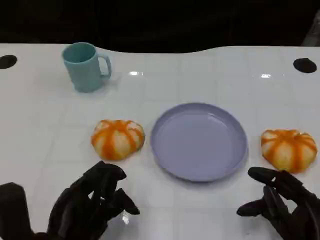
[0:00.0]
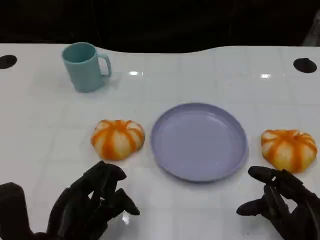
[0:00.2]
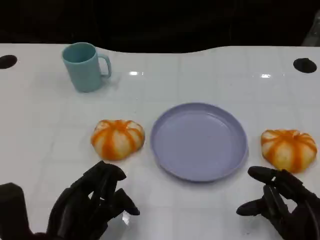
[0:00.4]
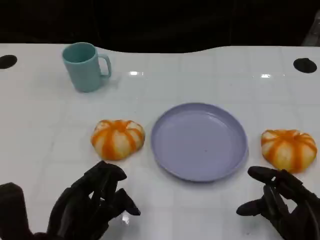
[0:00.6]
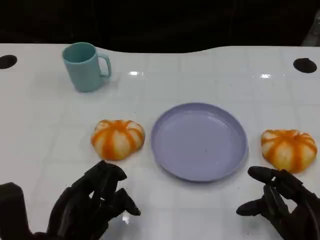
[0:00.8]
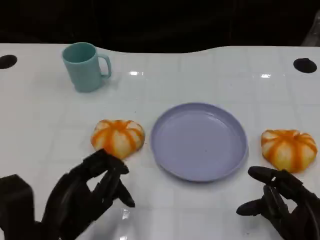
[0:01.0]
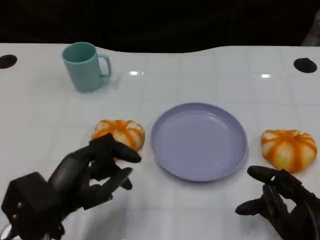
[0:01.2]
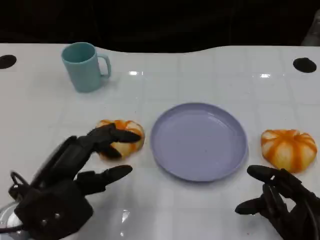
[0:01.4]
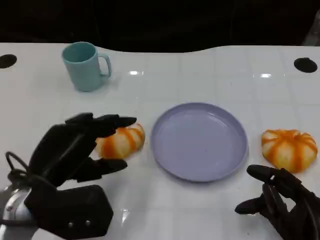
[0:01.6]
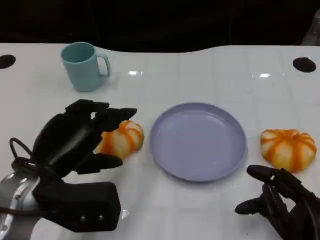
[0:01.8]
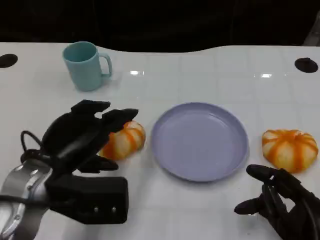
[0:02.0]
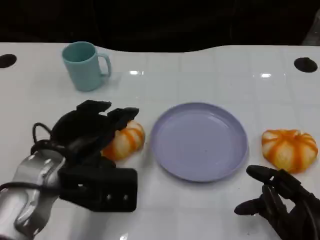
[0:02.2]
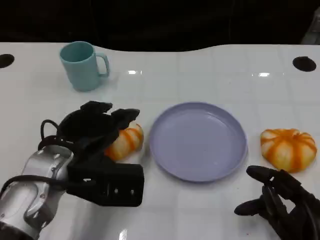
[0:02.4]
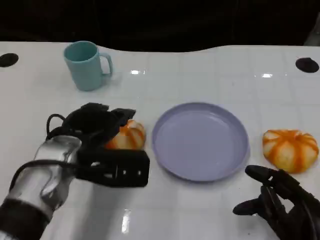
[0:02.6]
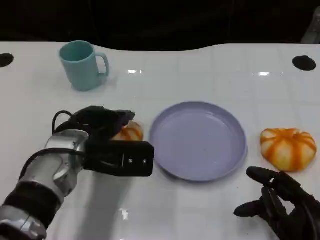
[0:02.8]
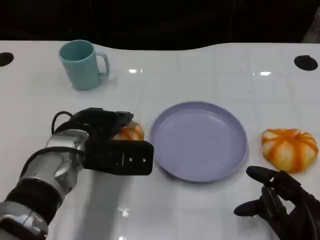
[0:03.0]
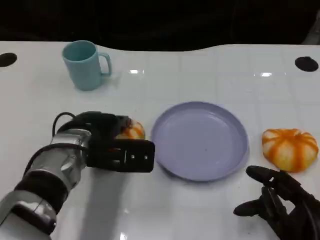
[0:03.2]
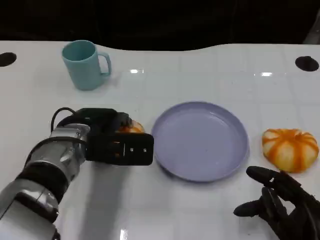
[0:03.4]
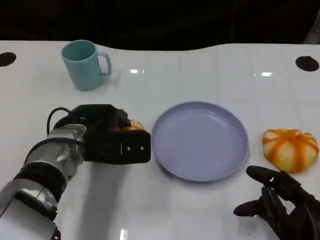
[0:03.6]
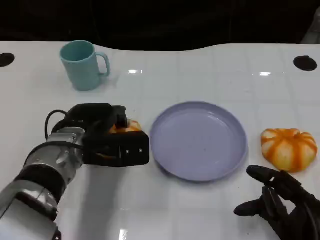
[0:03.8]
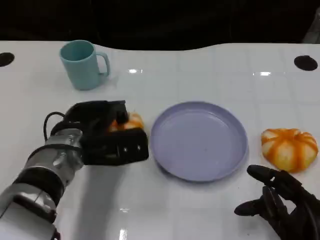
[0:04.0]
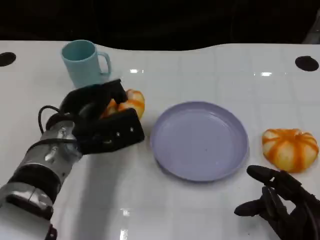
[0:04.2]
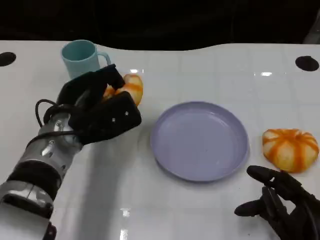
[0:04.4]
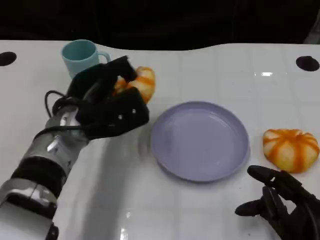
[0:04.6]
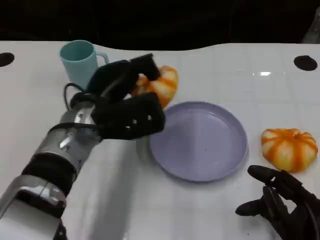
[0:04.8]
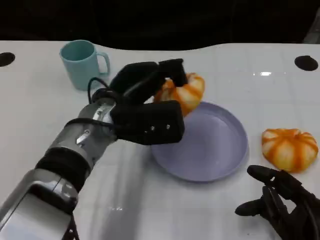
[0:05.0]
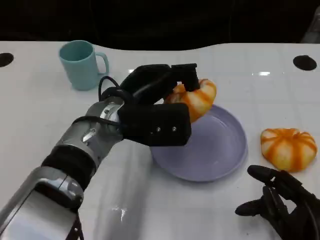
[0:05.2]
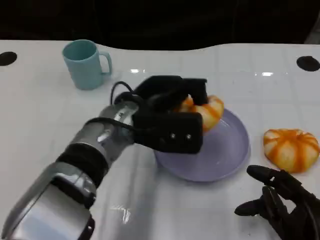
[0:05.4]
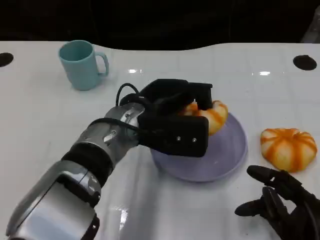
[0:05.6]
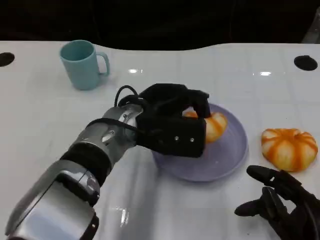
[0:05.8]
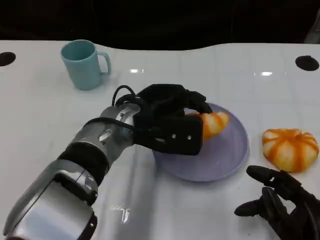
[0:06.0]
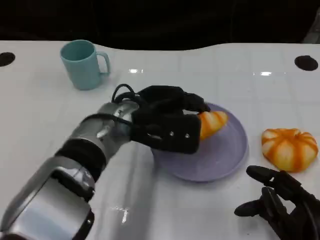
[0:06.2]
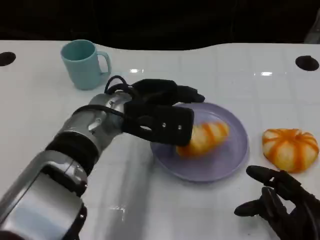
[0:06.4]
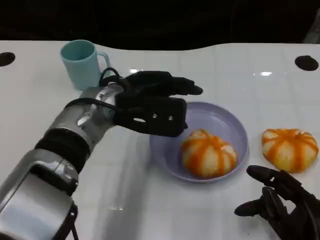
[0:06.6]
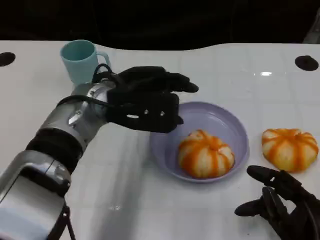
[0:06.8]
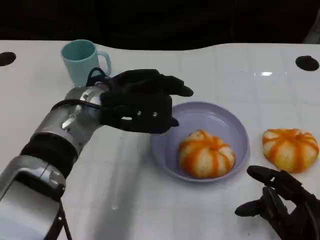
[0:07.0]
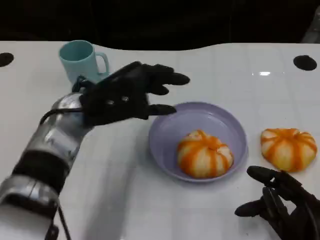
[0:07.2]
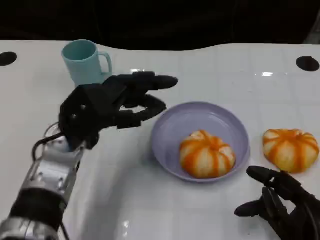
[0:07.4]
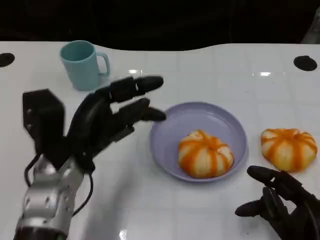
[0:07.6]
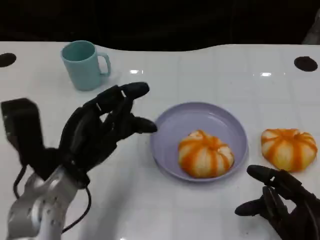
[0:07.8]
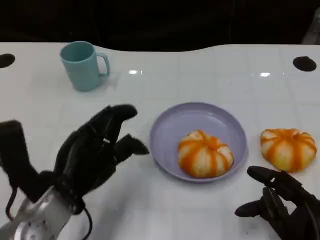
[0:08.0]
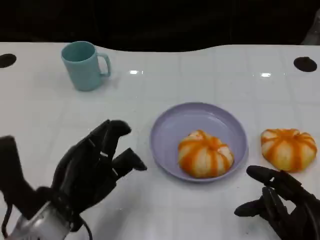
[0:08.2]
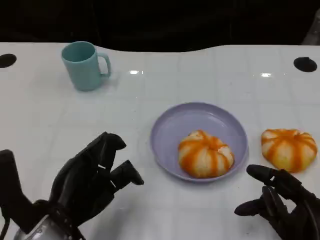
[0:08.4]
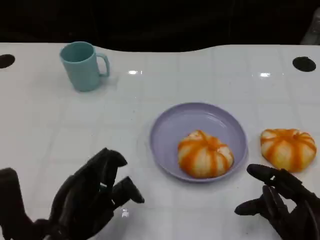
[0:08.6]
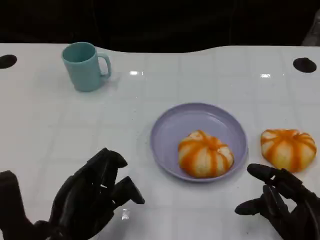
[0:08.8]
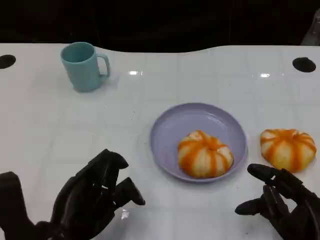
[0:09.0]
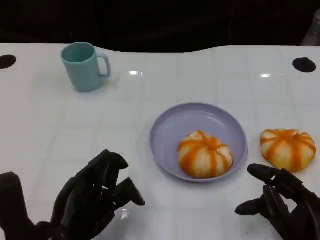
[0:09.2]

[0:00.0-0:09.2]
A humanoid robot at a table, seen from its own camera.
Task of the whole recording: Grasp the bread from the table and place it into the plate.
0:00.0 to 0:01.6: The left hand heads forward and upward, covering about 10 cm.
0:01.6 to 0:03.0: The left hand is displaced forward and to the right by roughly 10 cm.
0:04.6 to 0:06.2: The left hand goes about 5 cm to the right.
0:06.2 to 0:07.6: The left hand travels to the left and backward by some 10 cm.
0:07.6 to 0:09.2: The left hand heads backward, covering roughly 10 cm.

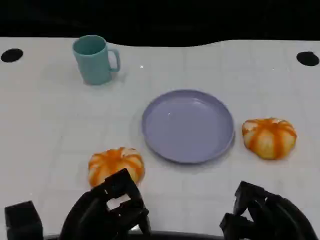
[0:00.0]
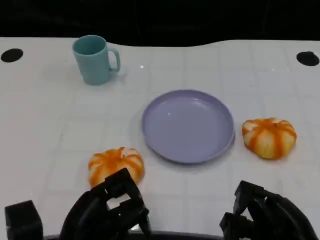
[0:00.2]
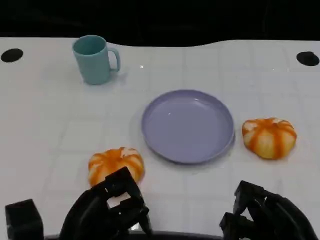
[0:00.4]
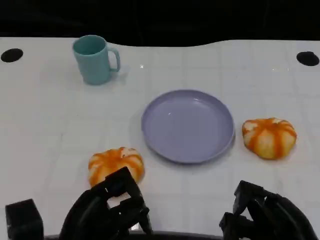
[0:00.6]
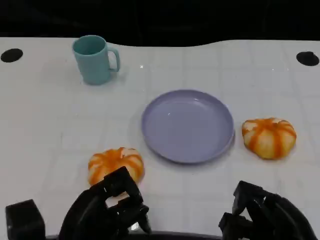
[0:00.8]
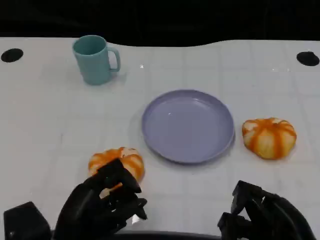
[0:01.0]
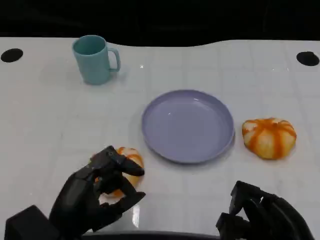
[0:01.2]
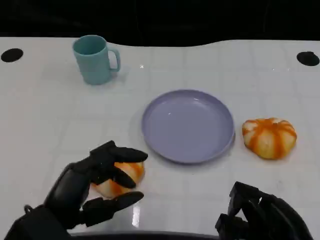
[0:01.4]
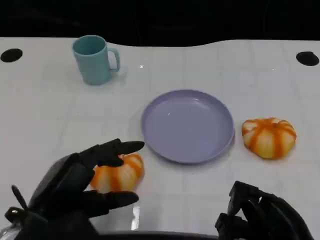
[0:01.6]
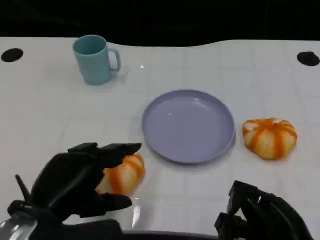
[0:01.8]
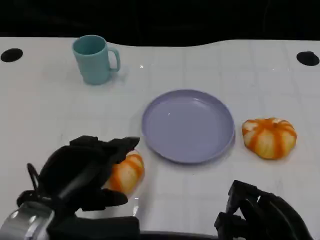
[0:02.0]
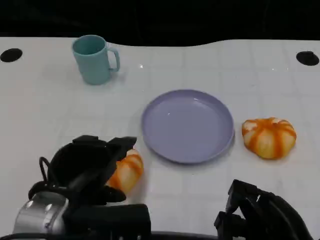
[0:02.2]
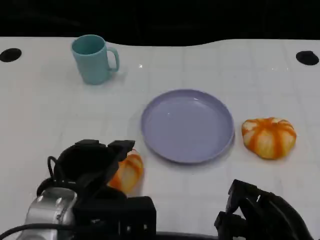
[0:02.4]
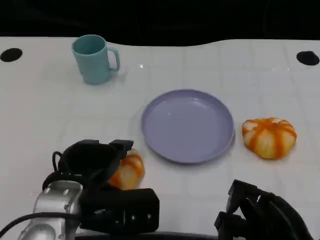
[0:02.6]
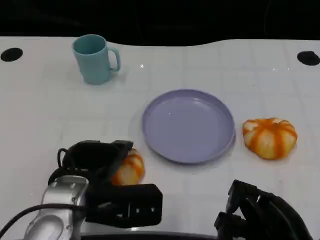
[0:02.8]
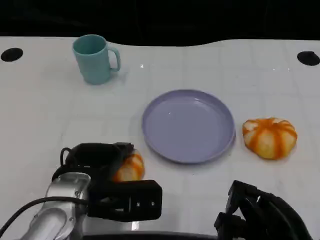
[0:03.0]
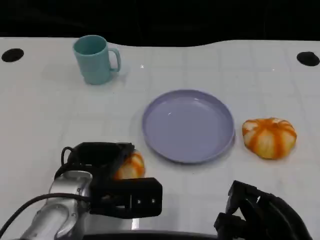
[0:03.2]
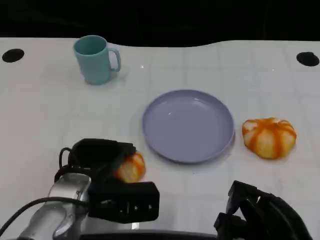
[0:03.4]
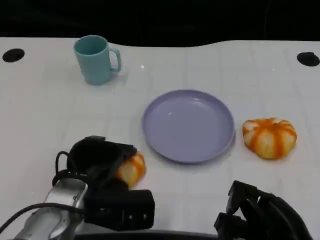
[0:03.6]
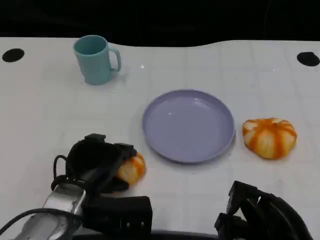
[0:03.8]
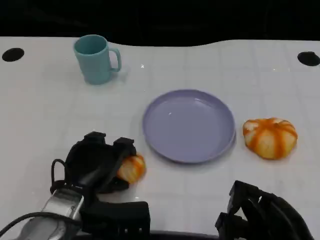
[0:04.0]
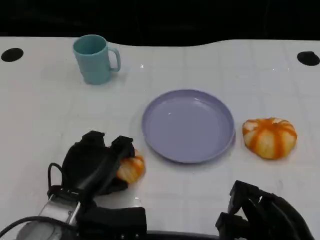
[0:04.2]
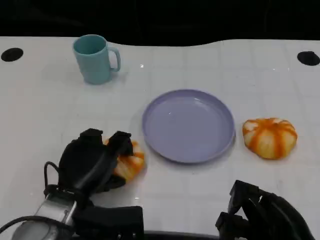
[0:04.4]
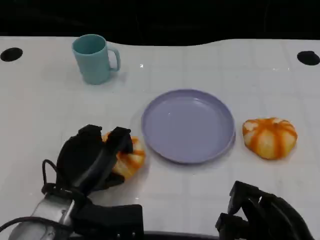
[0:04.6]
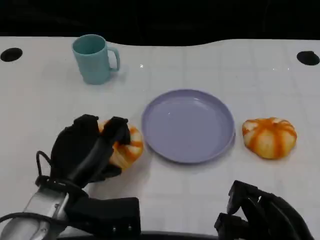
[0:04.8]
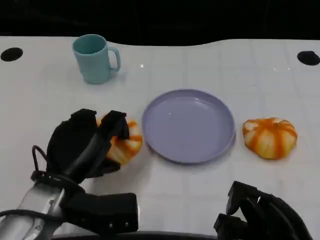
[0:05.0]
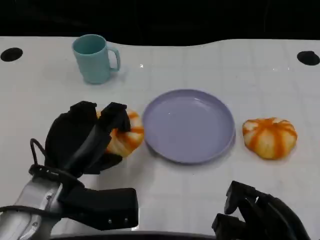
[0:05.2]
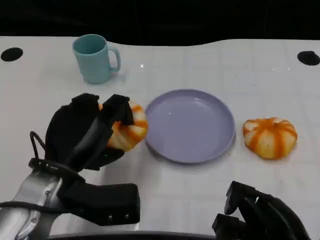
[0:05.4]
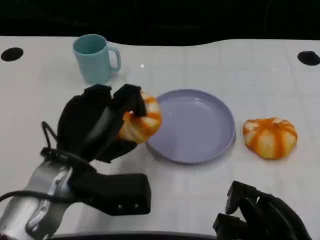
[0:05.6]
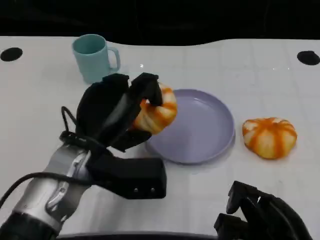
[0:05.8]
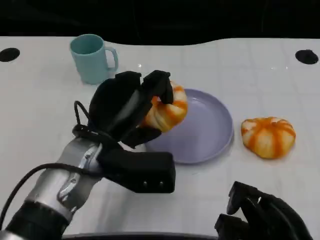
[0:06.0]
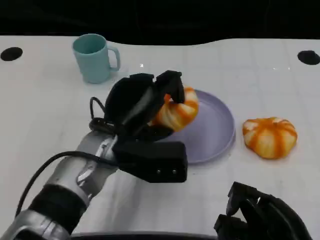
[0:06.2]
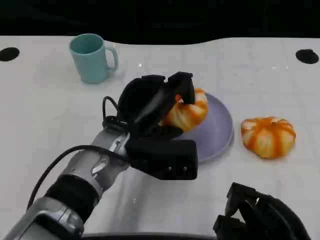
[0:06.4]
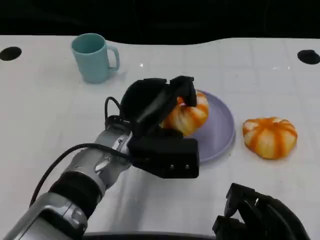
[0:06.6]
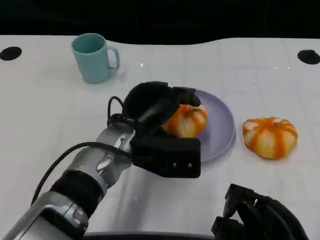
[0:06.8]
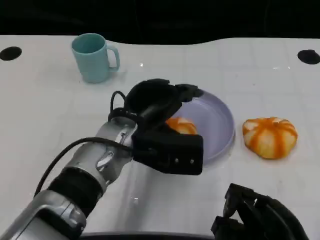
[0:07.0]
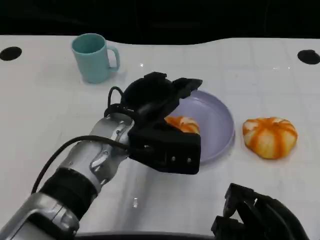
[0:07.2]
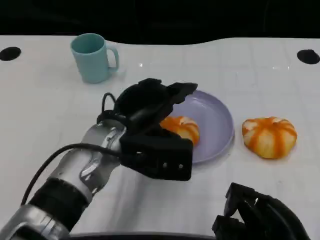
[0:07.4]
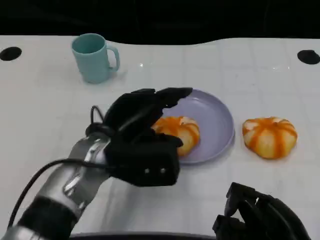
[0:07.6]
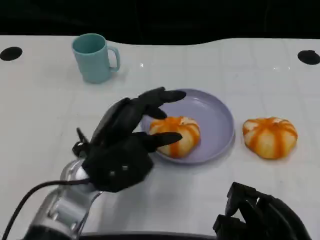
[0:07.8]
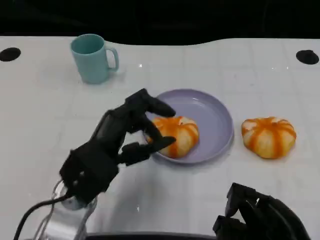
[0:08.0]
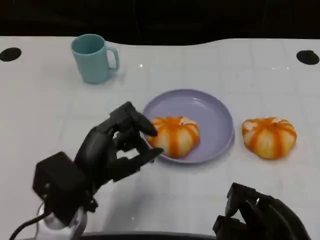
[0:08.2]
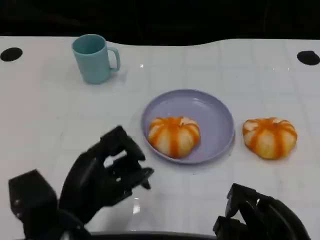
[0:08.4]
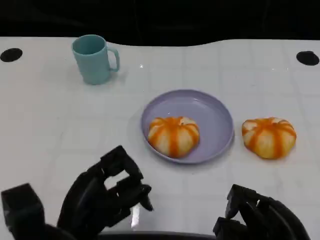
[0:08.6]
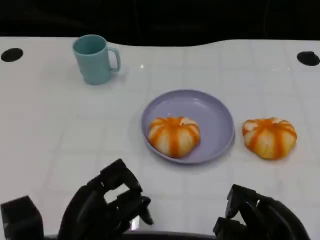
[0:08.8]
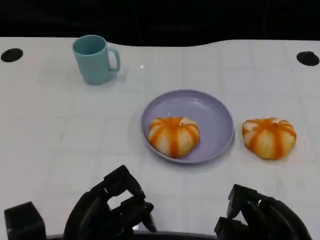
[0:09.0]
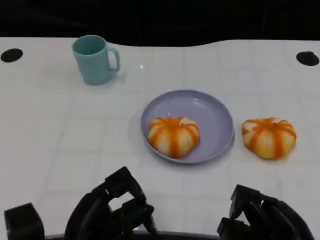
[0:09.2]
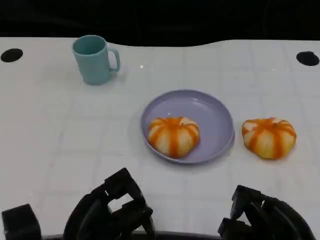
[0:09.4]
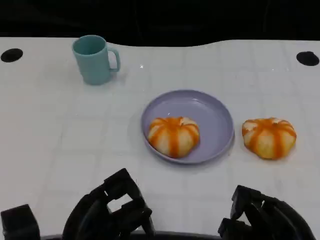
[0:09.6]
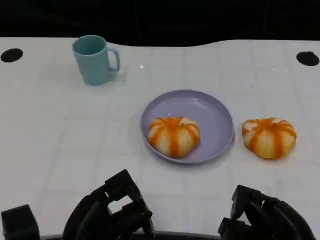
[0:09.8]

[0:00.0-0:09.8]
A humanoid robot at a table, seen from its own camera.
Task of the whole recording: Grasp the bread from the table and place it into the plate.
0:00.0 to 0:01.4: The left hand moves upward, roughly 5 cm.
0:01.4 to 0:02.8: The left hand travels forward by approximately 5 cm.
0:02.8 to 0:04.2: The left hand is displaced downward by roughly 5 cm.
0:04.2 to 0:05.6: The left hand moves upward, about 10 cm.
0:05.6 to 0:07.0: The left hand heads to the right, covering about 10 cm.
0:07.0 to 0:08.4: The left hand heads backward, to the left and downward, covering about 15 cm.
0:08.4 to 0:09.8: The hands make only small movements.

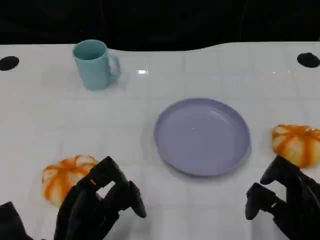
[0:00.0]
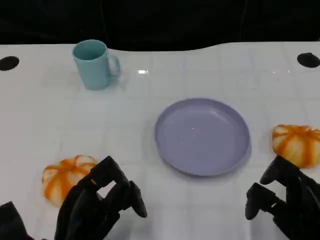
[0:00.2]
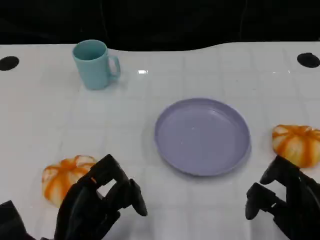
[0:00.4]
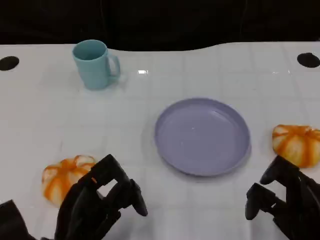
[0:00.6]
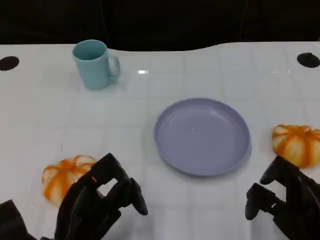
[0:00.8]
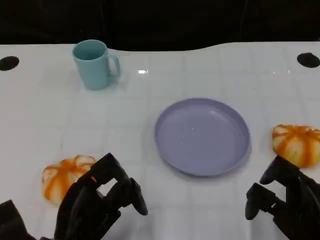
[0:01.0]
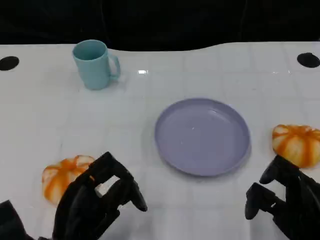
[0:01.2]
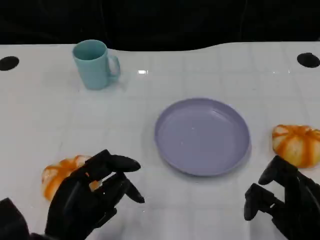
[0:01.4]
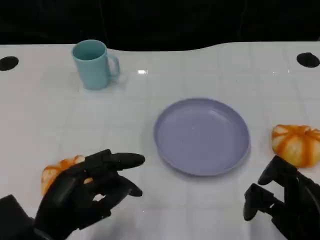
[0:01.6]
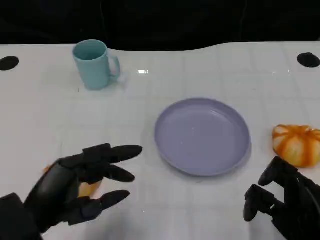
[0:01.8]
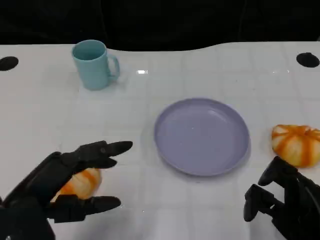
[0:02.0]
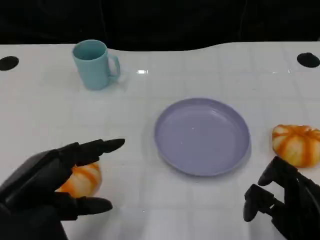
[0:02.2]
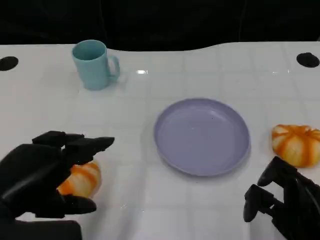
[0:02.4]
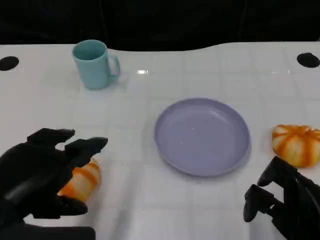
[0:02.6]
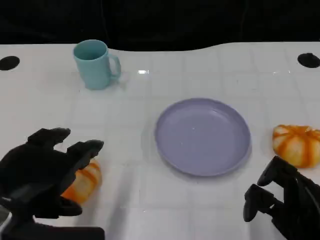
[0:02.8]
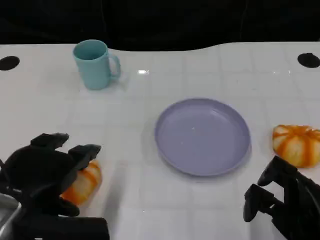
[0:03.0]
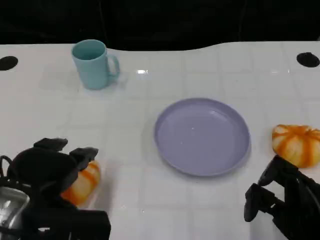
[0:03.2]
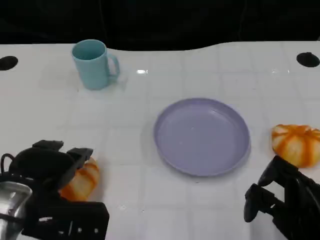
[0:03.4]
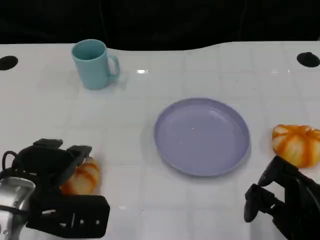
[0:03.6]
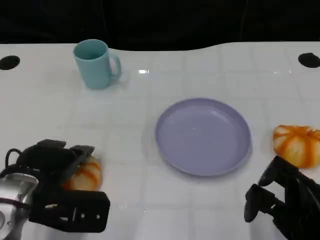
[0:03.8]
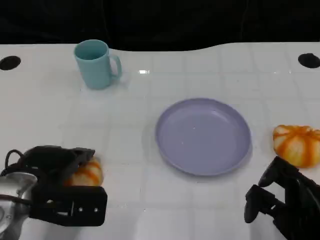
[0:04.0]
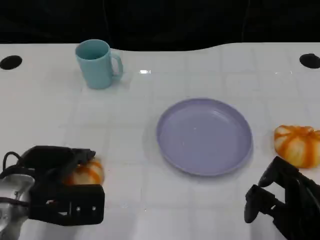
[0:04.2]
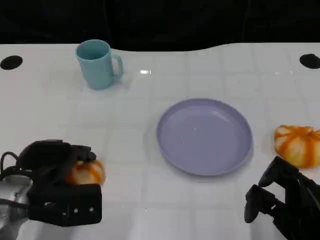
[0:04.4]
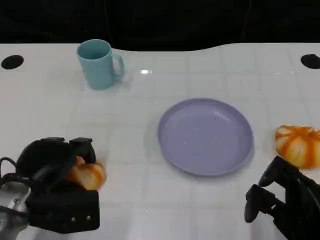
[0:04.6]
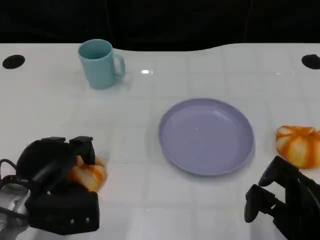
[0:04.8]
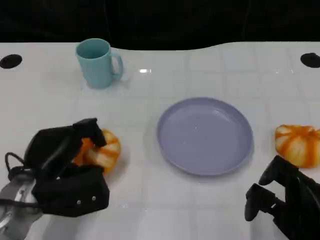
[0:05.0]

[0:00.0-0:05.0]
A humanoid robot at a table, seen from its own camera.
Task of the whole recording: Grasp the bread from the table and place it into the plate.
0:00.0 to 0:01.6: The left hand shifts by some 5 cm.
0:01.6 to 0:03.4: The left hand heads forward, covering about 5 cm, and moves about 10 cm upward and comes back.
0:03.4 to 0:05.0: The left hand ends up about 5 cm from where it was.
